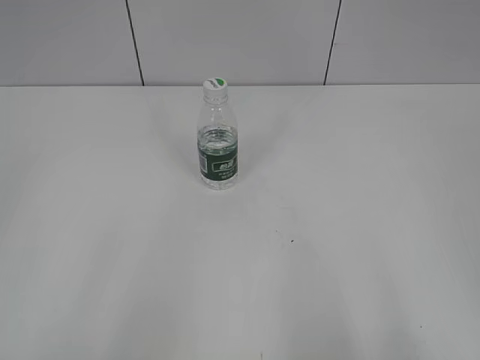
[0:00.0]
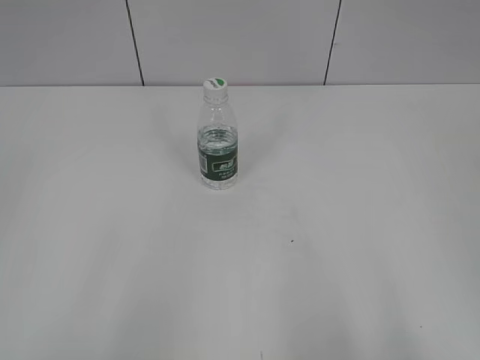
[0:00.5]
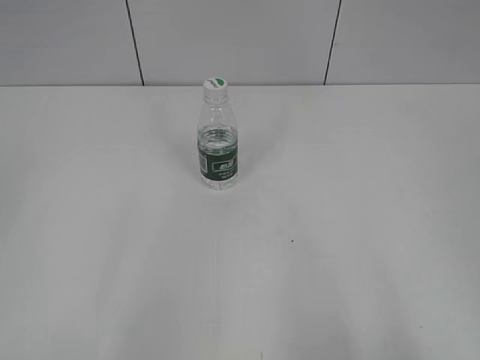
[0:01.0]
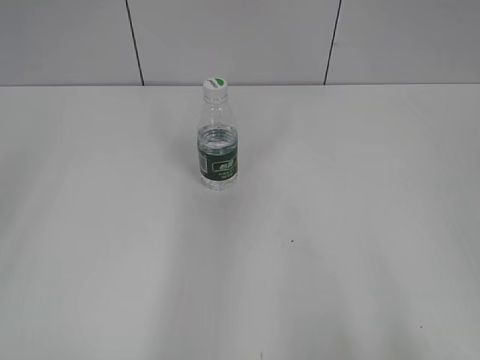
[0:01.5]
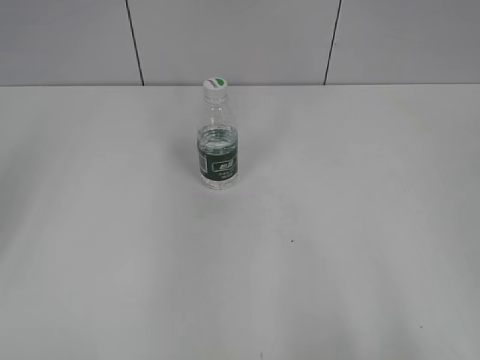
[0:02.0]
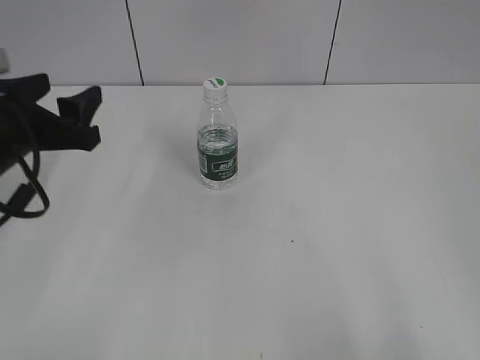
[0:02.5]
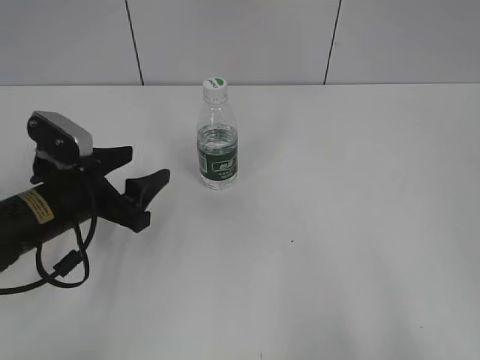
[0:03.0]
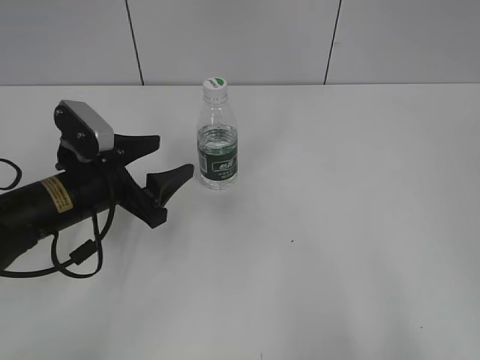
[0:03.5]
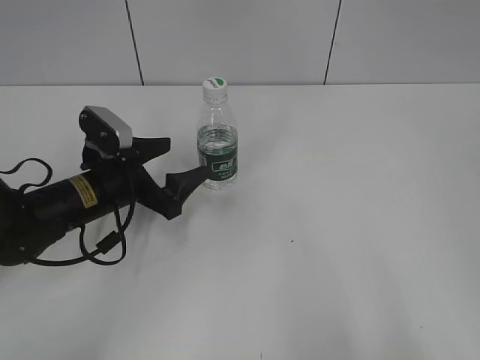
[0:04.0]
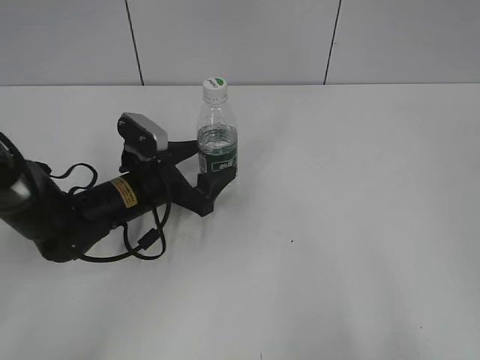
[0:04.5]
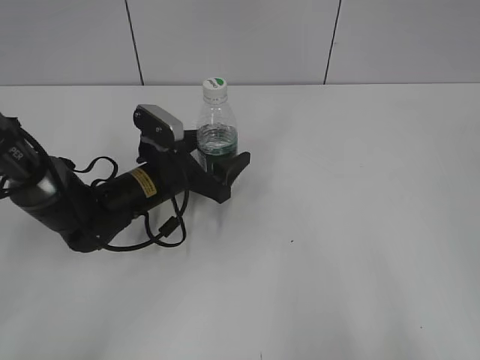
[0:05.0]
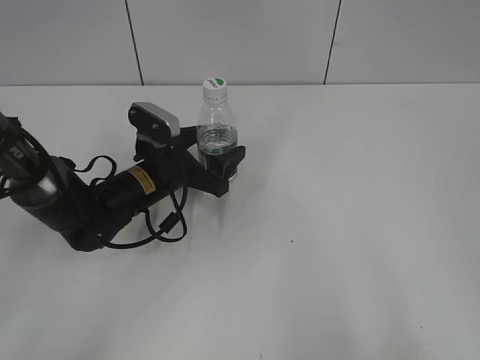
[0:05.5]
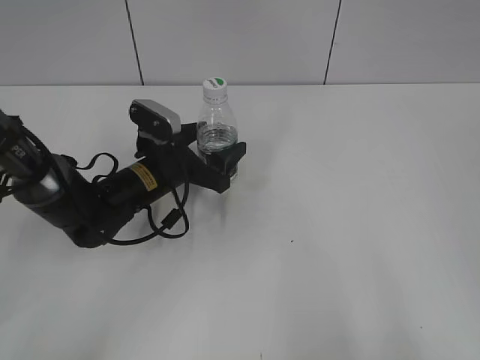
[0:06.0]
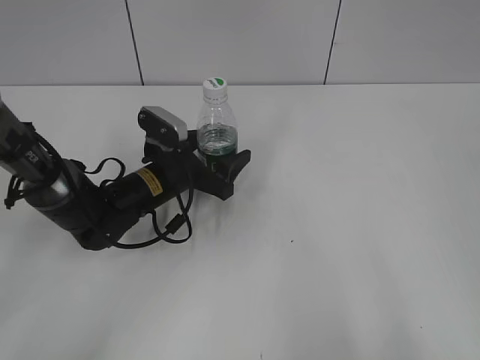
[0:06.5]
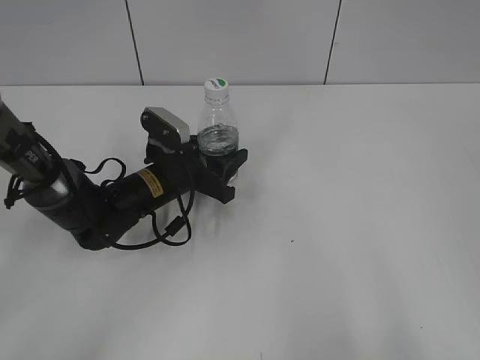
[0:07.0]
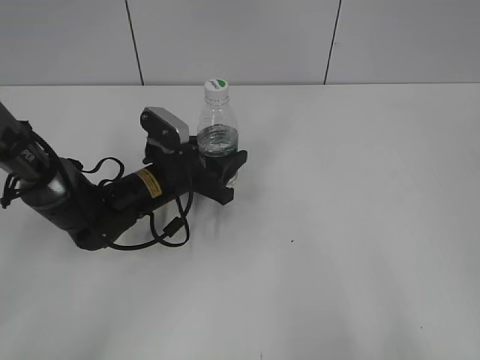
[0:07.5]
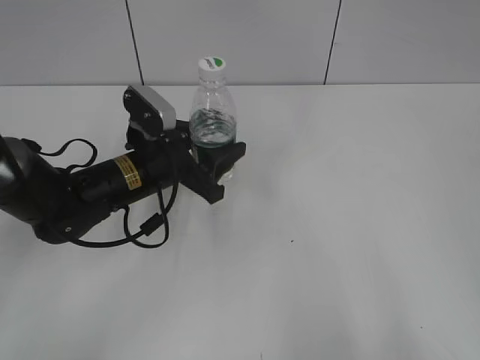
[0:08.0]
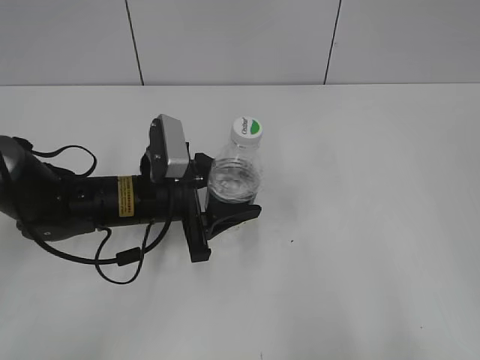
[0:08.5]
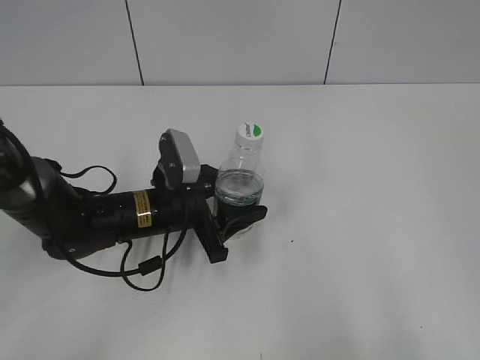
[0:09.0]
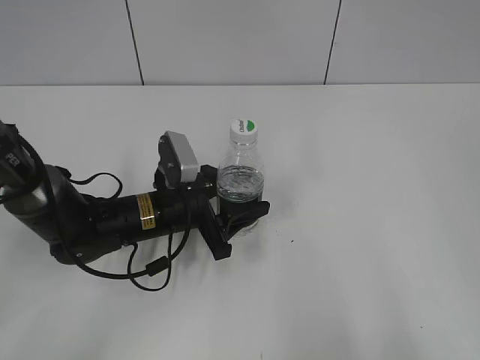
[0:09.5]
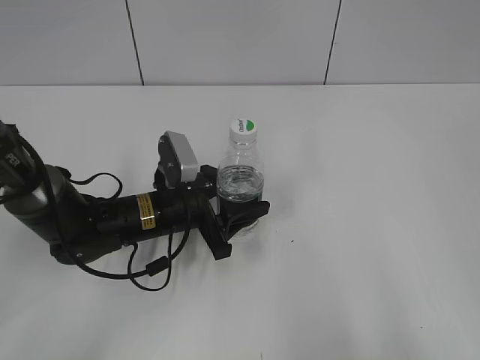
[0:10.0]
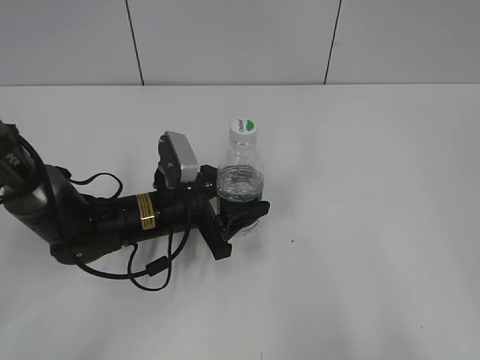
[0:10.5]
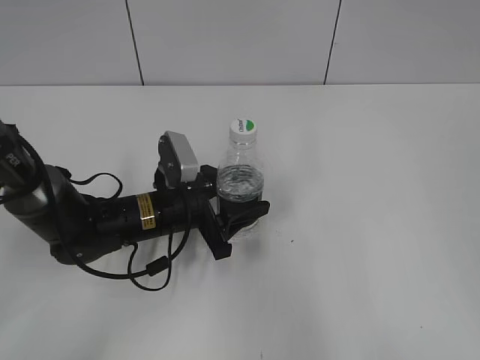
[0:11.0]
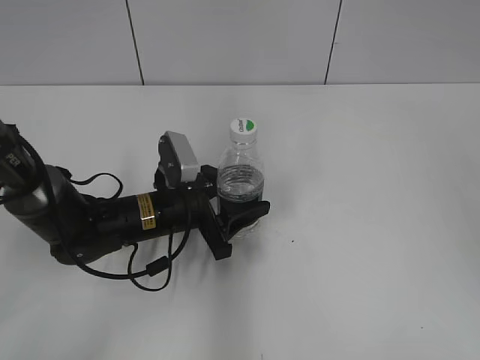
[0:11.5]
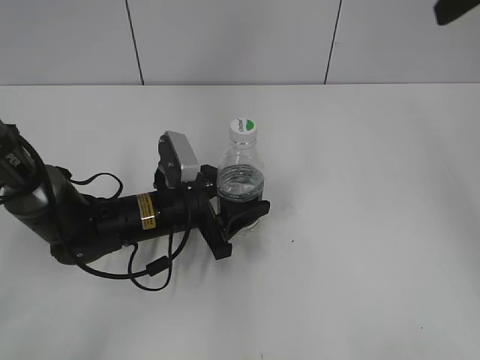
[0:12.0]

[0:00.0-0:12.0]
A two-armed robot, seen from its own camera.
Step, 0:00.0 to 0:07.5: Grasp the bottle and move it to the center of the table with the left gripper.
Step, 0:08.0 to 0:11.0: Lift the bottle and move it to the center of the table with the left gripper.
0:02.0 to 0:04.0: The left gripper shifts some 30 cm downward and to the right, and opens up.
0:04.0 to 0:06.0: The left gripper moves to the right, approximately 5 cm.
0:06.0 to 0:08.0: The left gripper closes up.
0:08.0 to 0:10.0: The left gripper travels downward by some 5 cm.
0:10.0 to 0:12.0: The right gripper moves forward, some 30 cm.

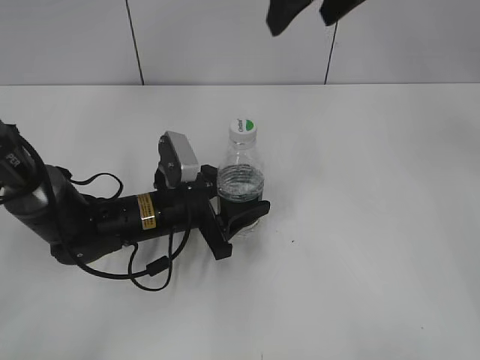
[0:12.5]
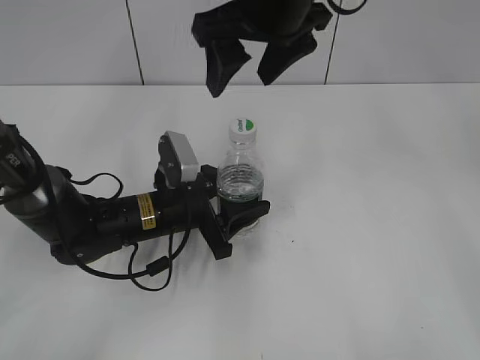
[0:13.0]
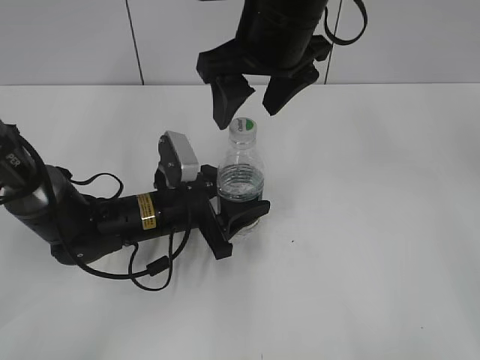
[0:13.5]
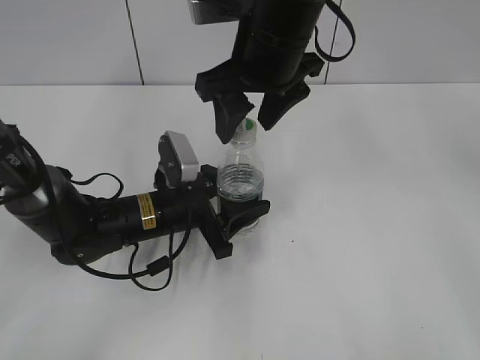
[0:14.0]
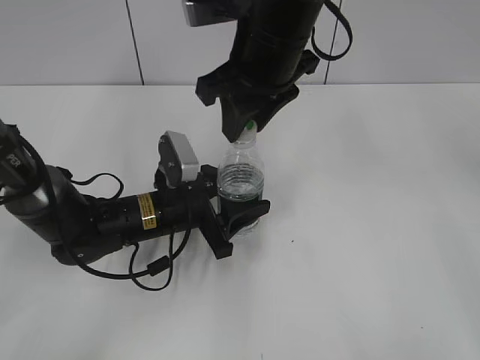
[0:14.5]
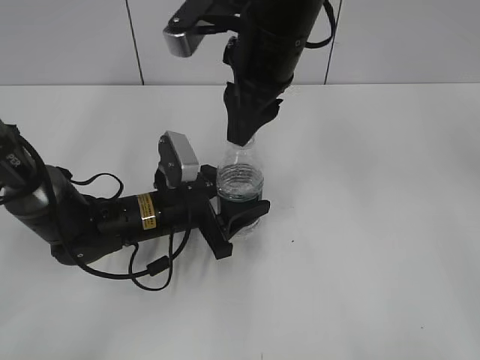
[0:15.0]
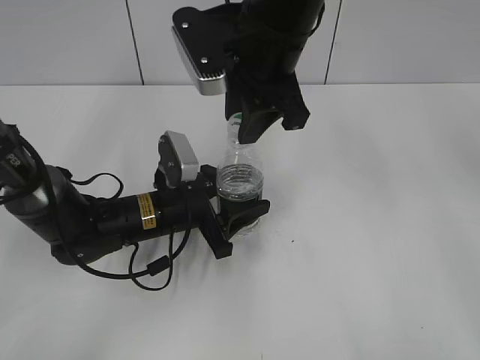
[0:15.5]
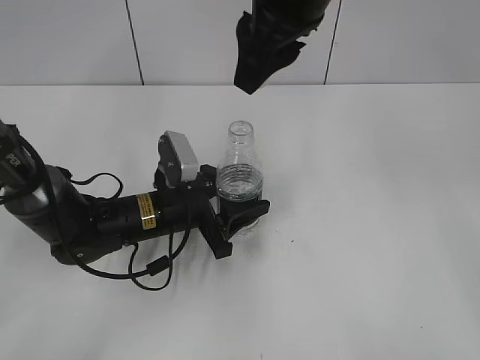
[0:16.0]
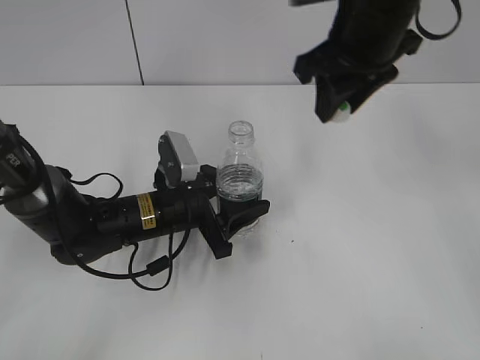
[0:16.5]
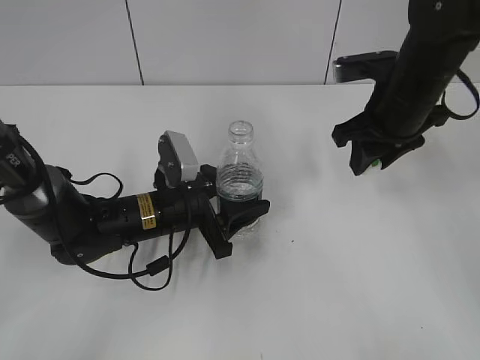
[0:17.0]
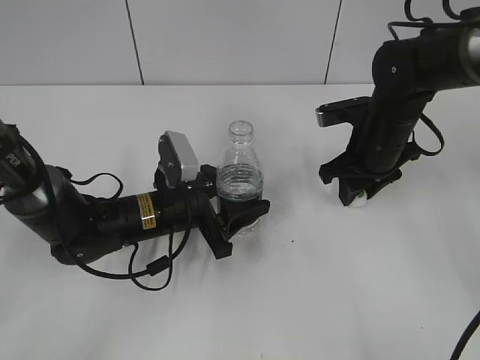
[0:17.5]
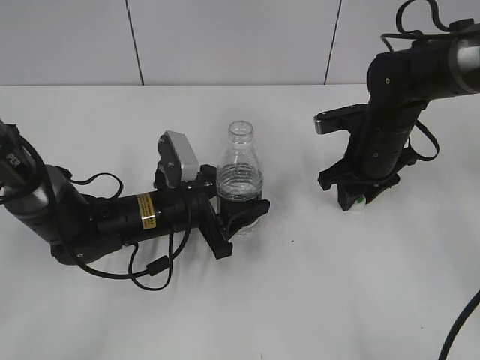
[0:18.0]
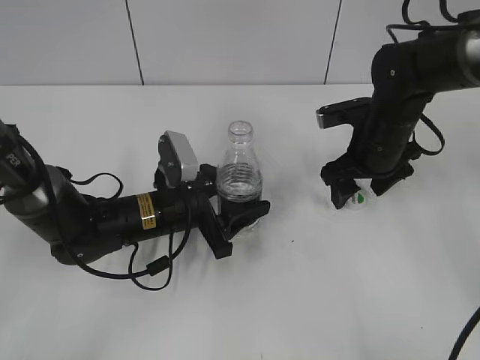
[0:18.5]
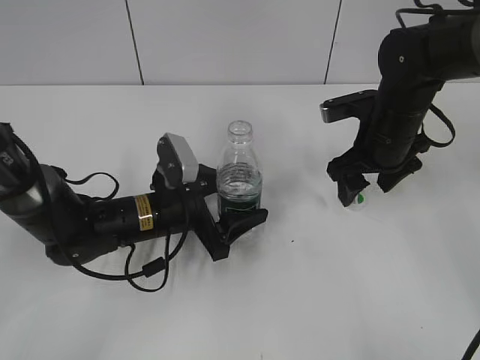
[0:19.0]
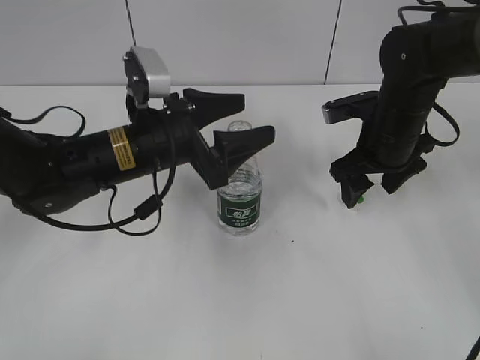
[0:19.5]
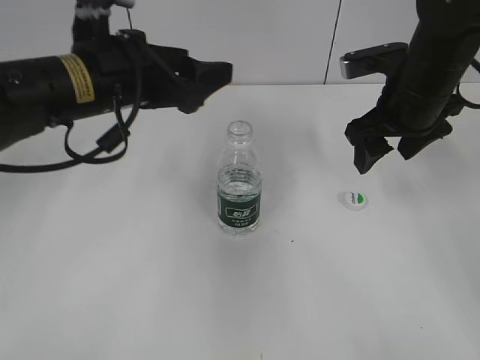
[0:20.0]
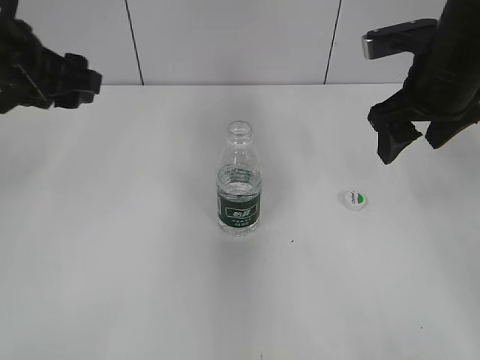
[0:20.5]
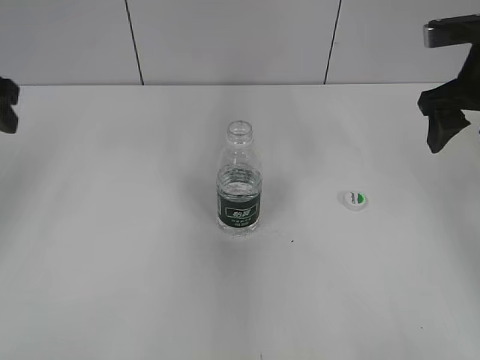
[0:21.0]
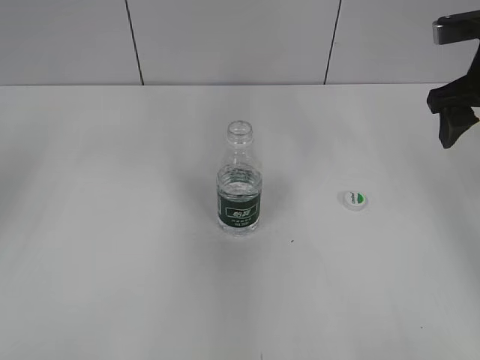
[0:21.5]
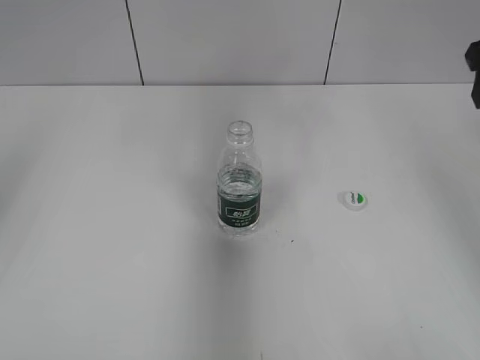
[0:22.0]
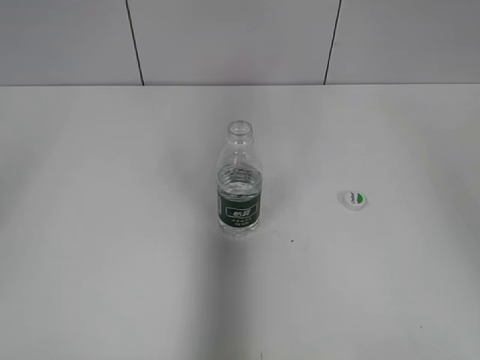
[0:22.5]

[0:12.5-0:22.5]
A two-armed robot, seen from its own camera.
Step, 0:12.5 to 0:15.5: Unscrew the bottle cap with the right gripper while holding the bottle with the left gripper.
Step, 0:16.0 to 0:18.0: Place the bottle cap on the table with the right gripper.
Step, 0:18.5 to 0:19.0: Place the bottle on the table with the left gripper.
0:12.5 to 0:14.5: The right gripper is displaced downward and to the left by roughly 10 cm, and closes up.
0:14.5 to 0:16.5: The right gripper heads to the right, covering approximately 10 cm.
0:16.5 to 0:18.5: The right gripper moves downward, some 15 cm, and opens.
0:18.5 to 0:20.5: The right gripper shifts approximately 15 cm upward. Meanwhile the left gripper is displaced upward and to the left by some 25 cm, and opens up.
0:20.5 to 0:22.5: The left gripper travels backward, upward and to the left by about 25 cm. Meanwhile the right gripper shifts roughly 15 cm upward, backward and to the right.

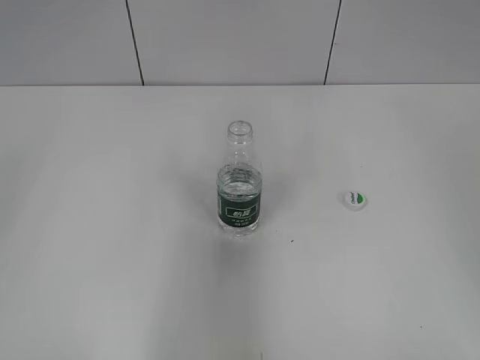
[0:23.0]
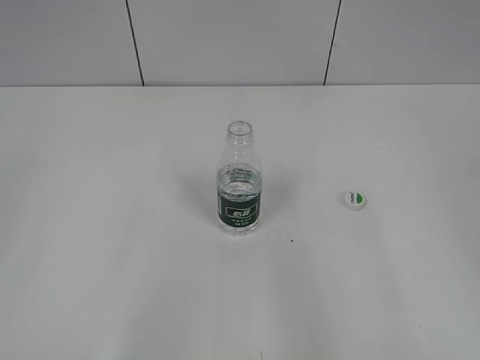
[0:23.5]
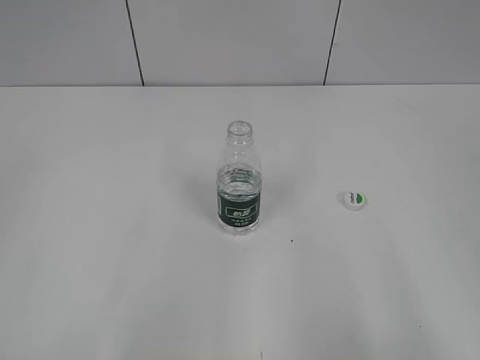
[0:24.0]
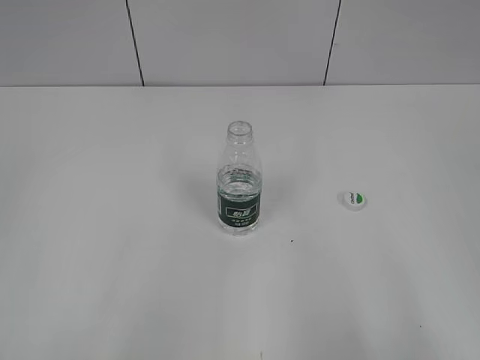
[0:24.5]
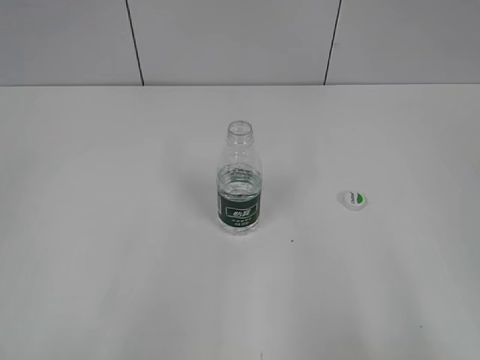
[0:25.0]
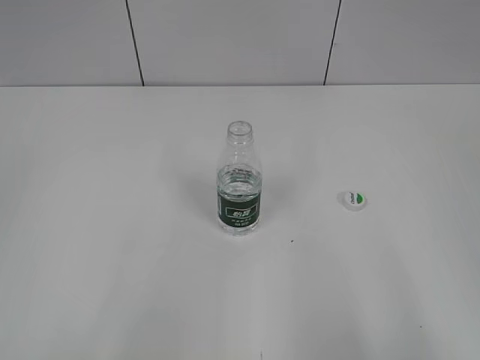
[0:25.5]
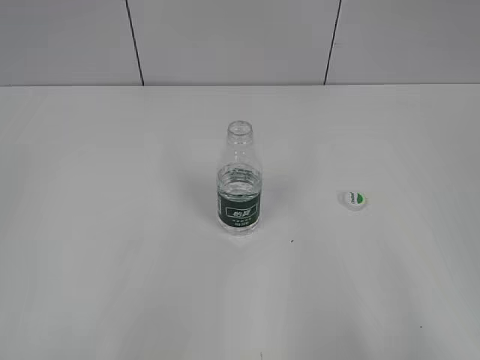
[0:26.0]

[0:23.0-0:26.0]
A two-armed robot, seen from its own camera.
0:23.0 to 0:24.5: The left gripper goes approximately 10 cm downward and backward. The right gripper travels backward and downward by roughly 15 cm.
